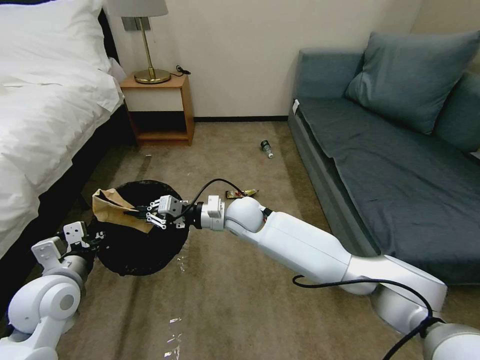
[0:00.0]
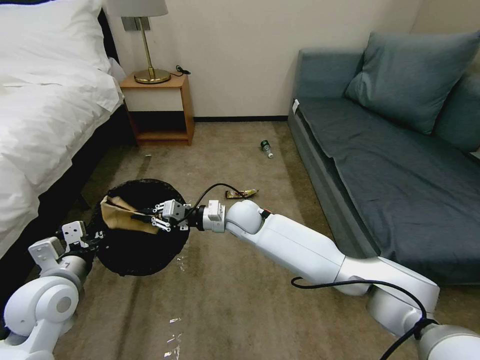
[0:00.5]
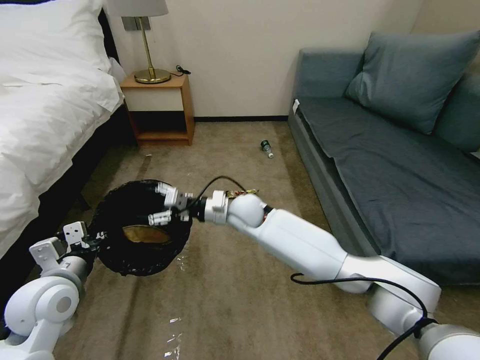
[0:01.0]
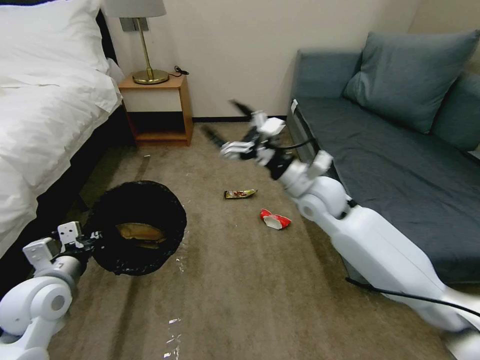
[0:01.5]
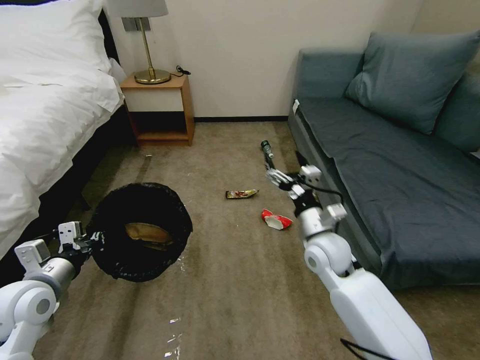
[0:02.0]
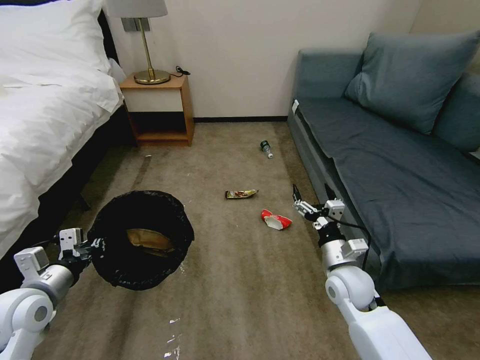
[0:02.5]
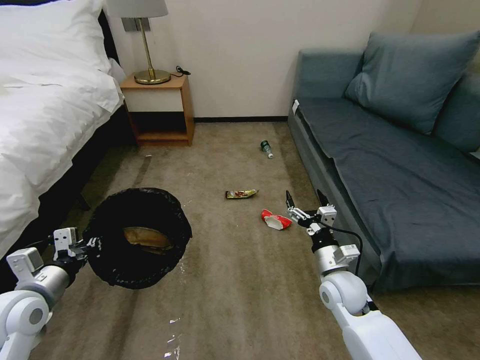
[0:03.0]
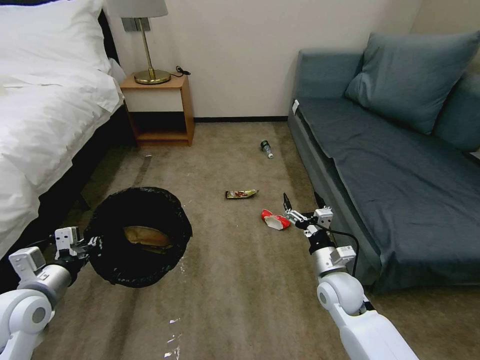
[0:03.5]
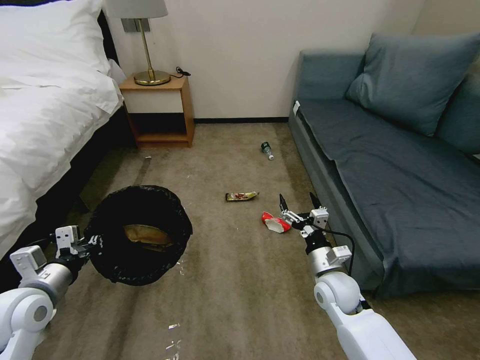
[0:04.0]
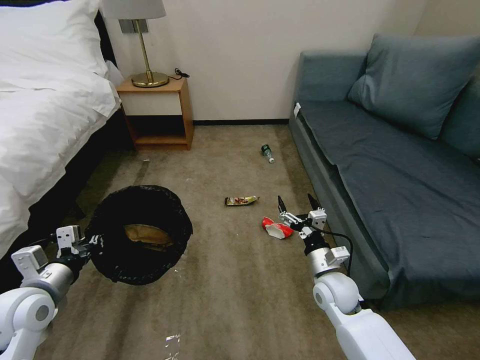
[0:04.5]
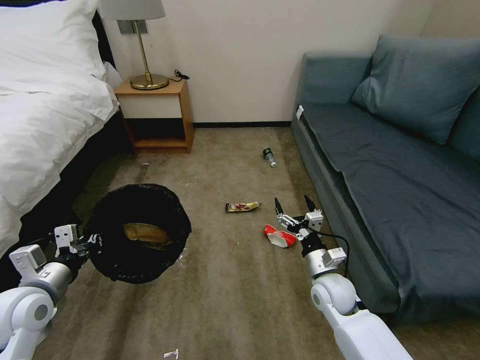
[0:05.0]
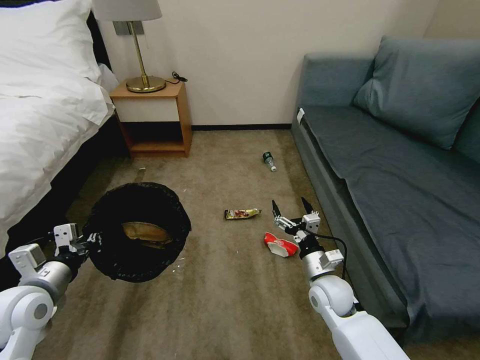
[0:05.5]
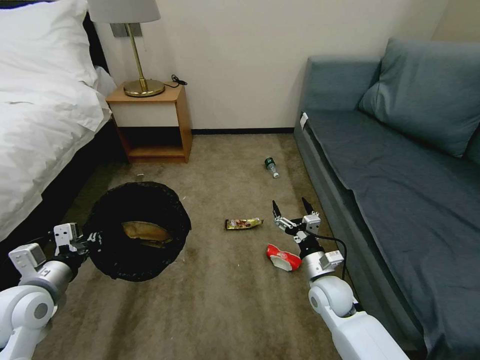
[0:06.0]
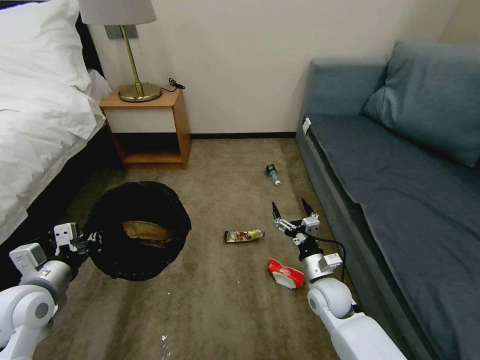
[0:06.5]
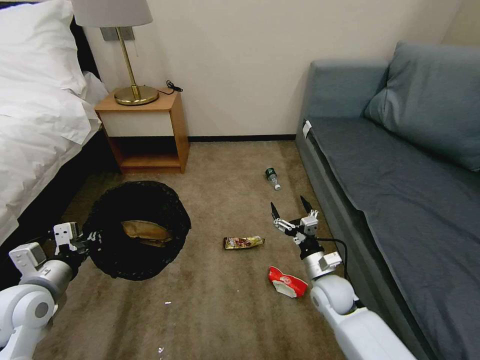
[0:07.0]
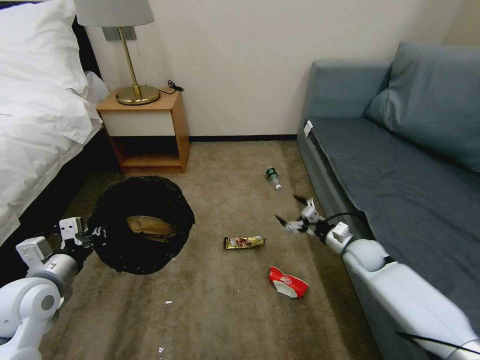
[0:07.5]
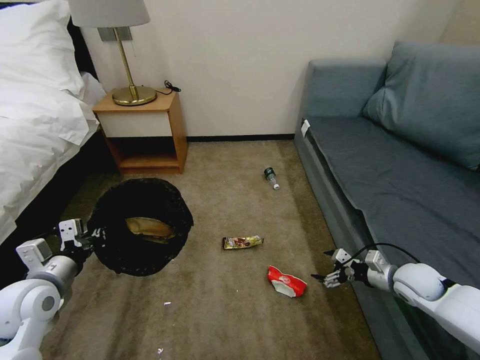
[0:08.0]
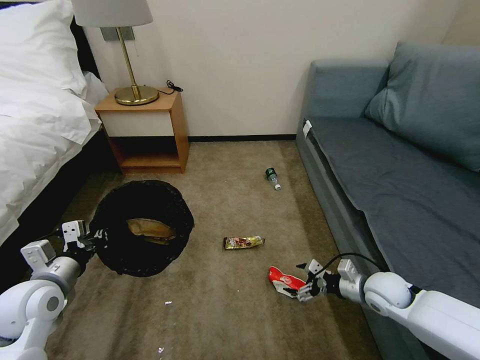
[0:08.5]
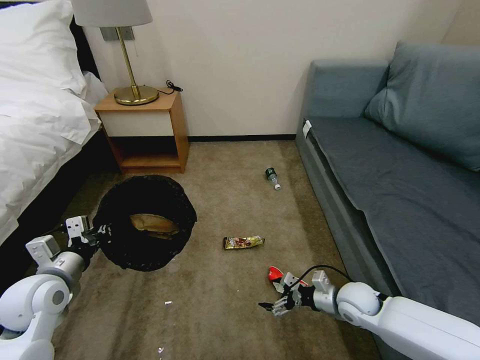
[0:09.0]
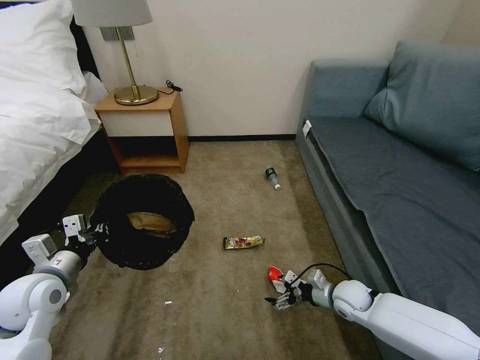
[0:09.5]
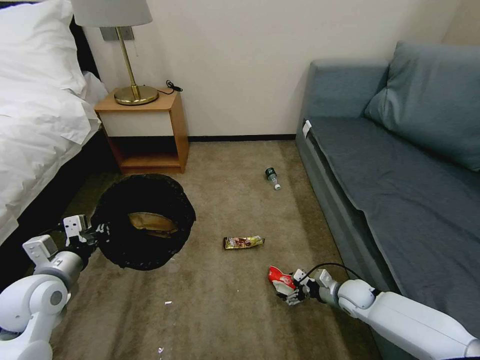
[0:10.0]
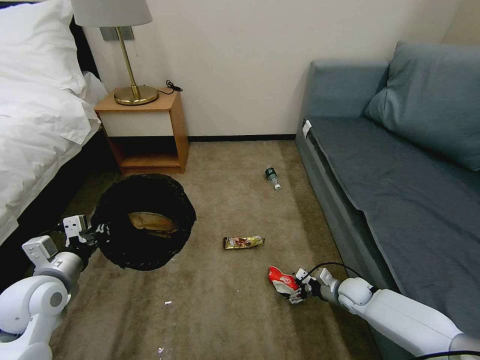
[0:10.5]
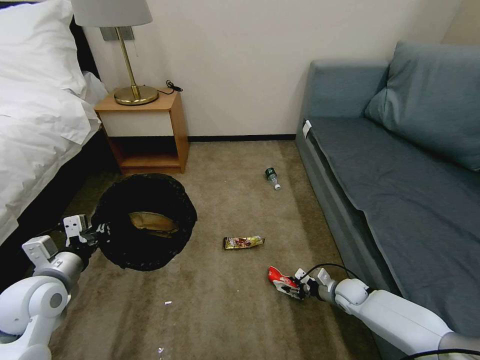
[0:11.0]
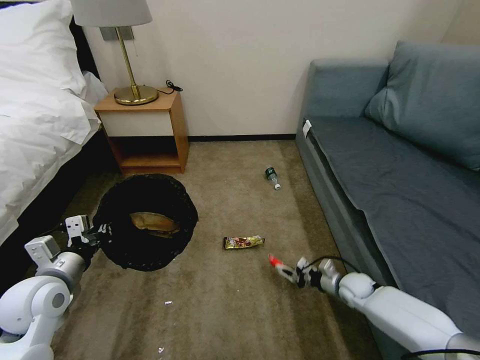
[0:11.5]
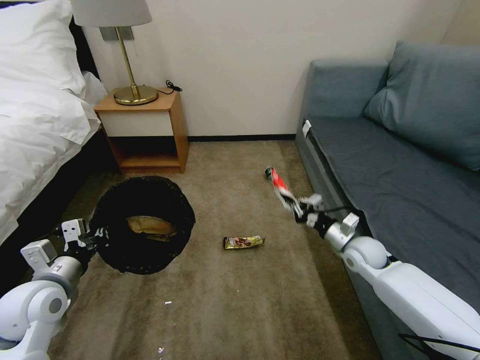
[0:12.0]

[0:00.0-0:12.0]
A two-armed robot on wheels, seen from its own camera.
Task of the whole recording: Pick up the trash bin, then pick up the garbage on the floor and place it into the trash bin.
0:00.0 to 0:02.0: The right gripper shifts about 20 cm to the right and backward, and opens.
0:02.0 to 0:04.0: The right gripper moves downward and backward, some 10 cm.
0:06.0 to 0:08.0: The right gripper shifts approximately 20 cm to the right.
0:08.0 to 0:10.0: The right gripper travels downward and to the left by about 15 cm.
0:10.0 to 0:12.0: The right gripper is displaced upward and forward by some 15 cm, and closes.

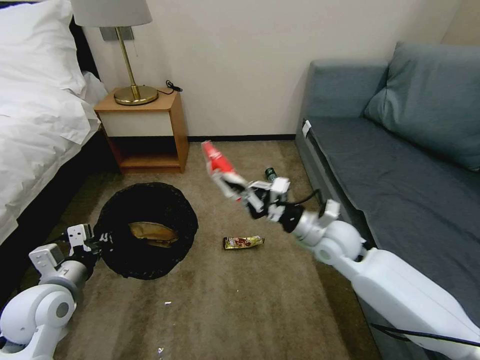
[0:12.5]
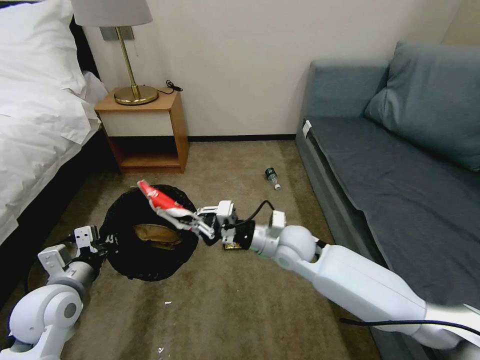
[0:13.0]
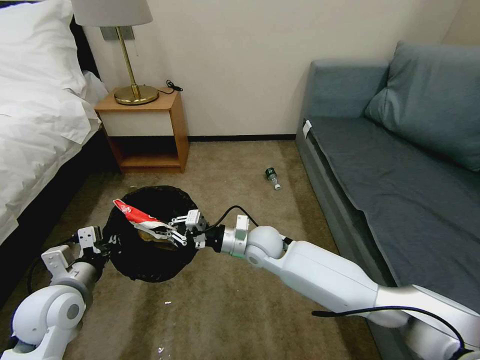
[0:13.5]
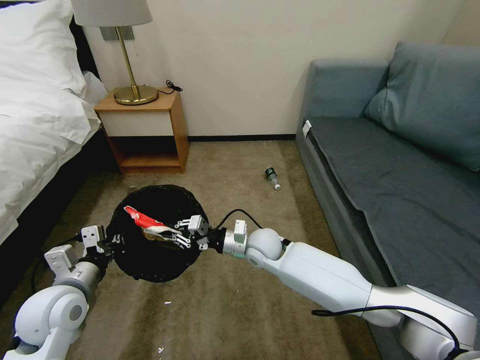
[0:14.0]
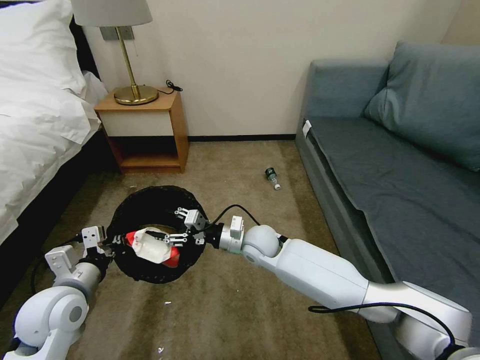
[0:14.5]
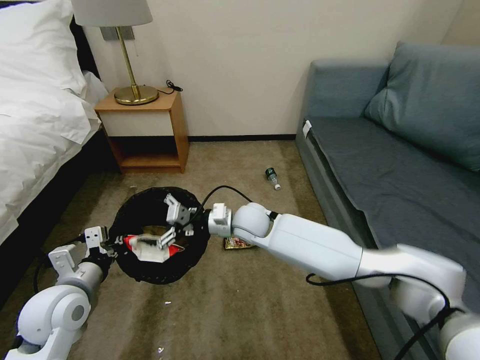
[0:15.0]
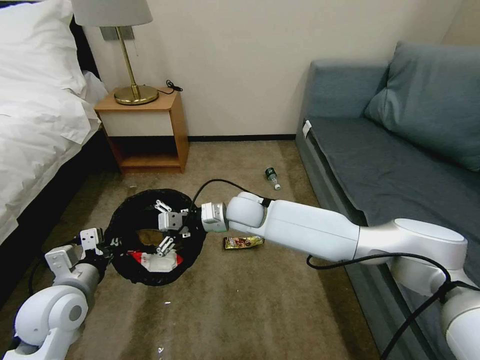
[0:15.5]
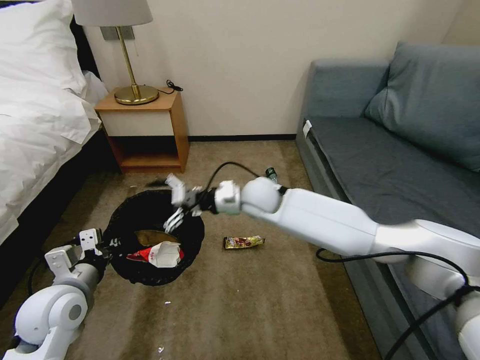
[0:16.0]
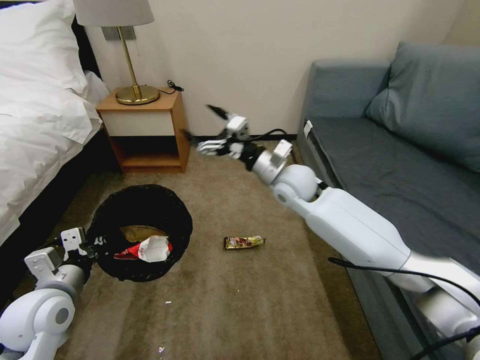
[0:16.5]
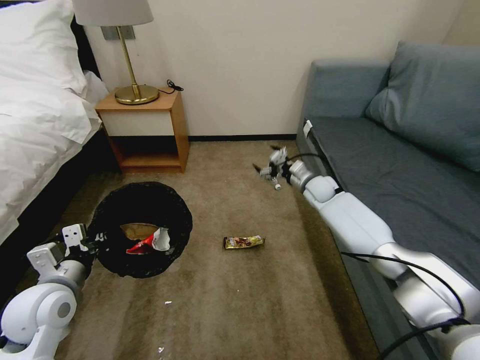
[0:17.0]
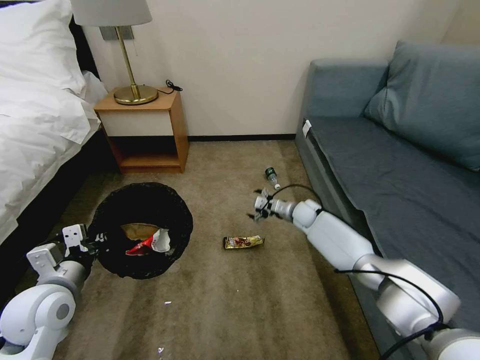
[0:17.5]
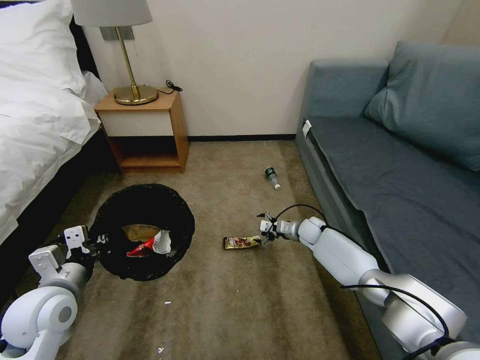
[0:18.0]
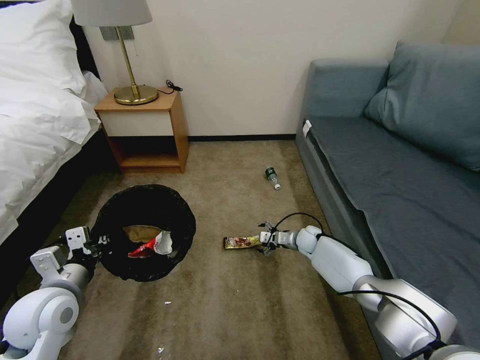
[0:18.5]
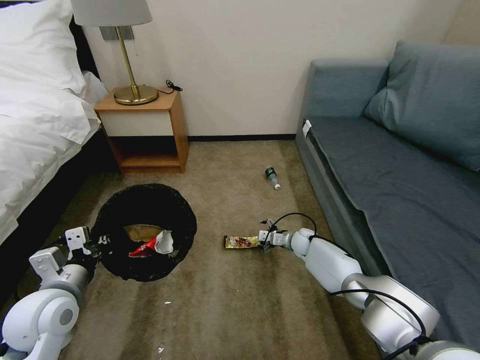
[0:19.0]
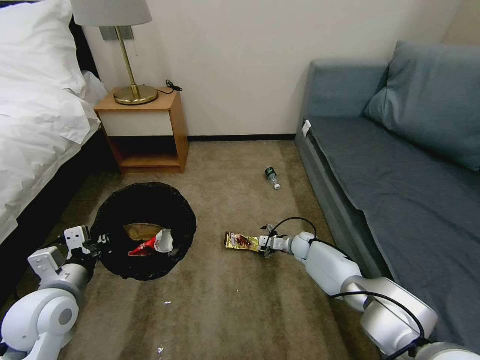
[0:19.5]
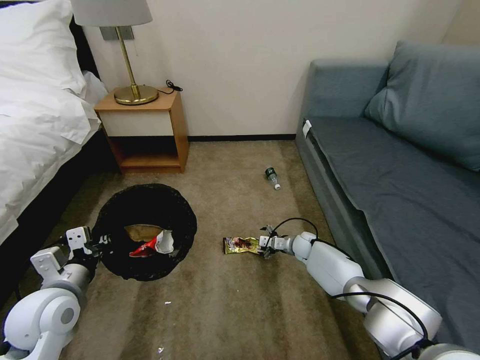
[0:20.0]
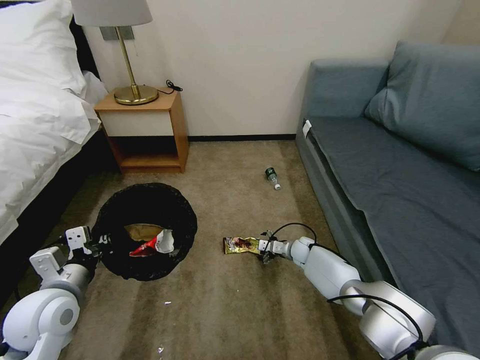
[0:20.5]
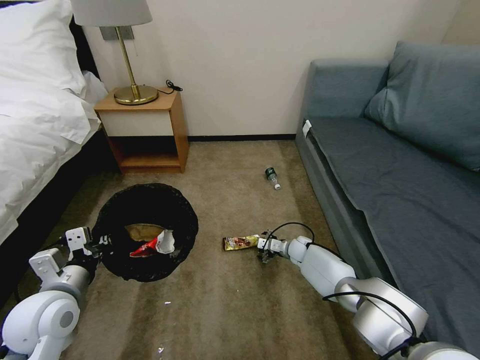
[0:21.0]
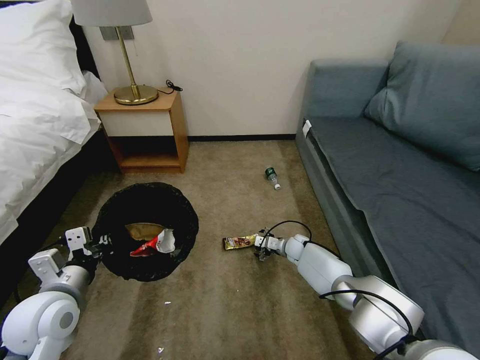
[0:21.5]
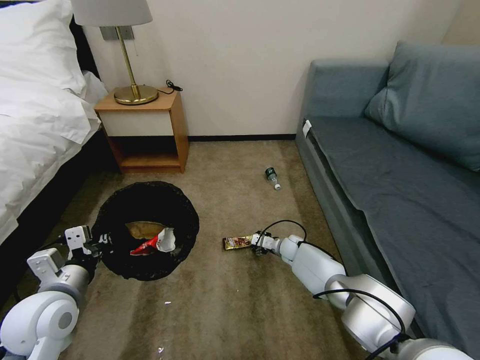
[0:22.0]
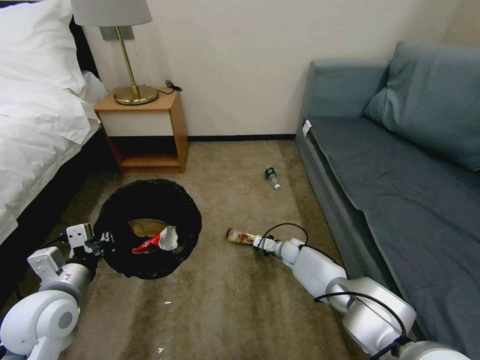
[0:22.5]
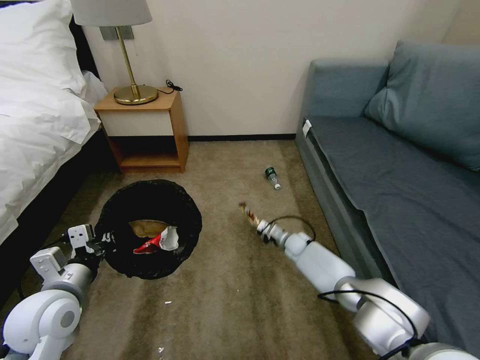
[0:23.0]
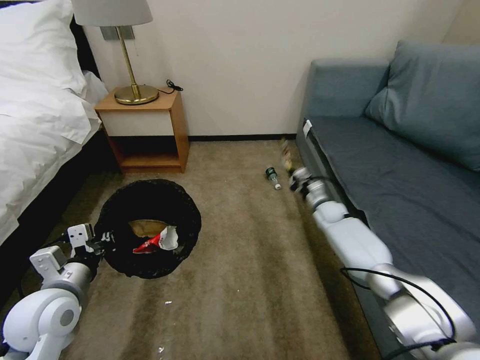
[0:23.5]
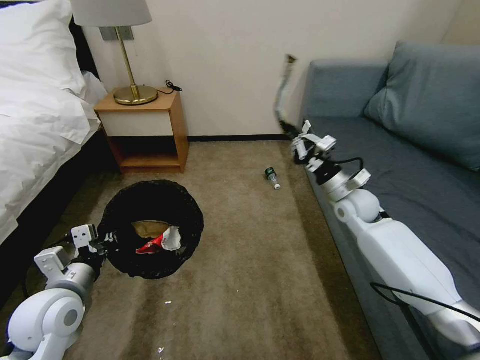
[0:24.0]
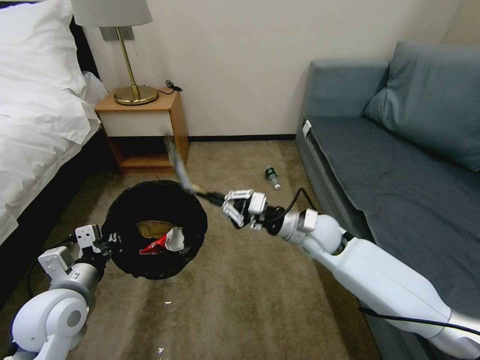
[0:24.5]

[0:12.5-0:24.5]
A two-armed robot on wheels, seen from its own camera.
Task of the whole recording: Pick up the trash bin, then pick up the garbage on the floor and place it into the trash bin.
0:12.5 to 0:14.5: The right gripper shifts some 20 cm to the left and downward, and opens up.
0:14.5 to 0:16.5: The right gripper shifts about 20 cm upward, to the right and forward, and opens.
0:16.5 to 0:18.5: The right gripper travels downward by some 30 cm.
0:18.5 to 0:20.5: The grippers stay close to where they were, moving slightly.
0:20.5 to 0:22.5: The right gripper closes up.
0:22.5 to 0:24.5: The right gripper moves upward, some 25 cm.

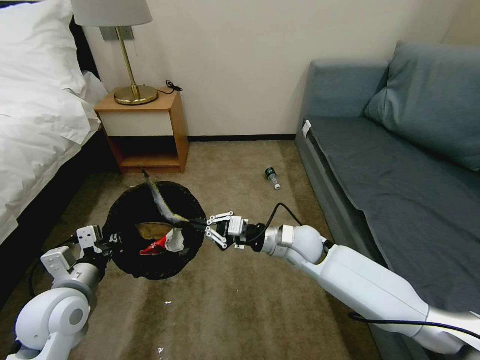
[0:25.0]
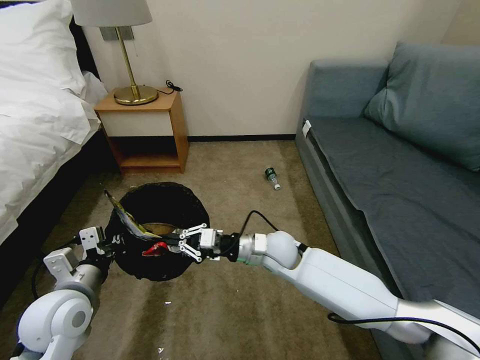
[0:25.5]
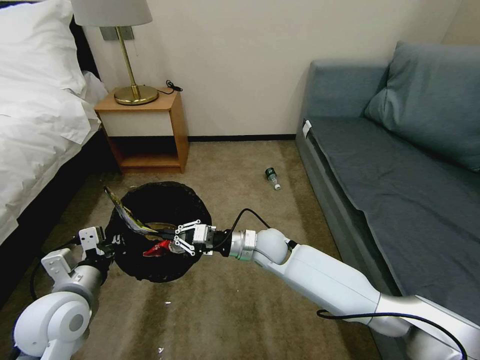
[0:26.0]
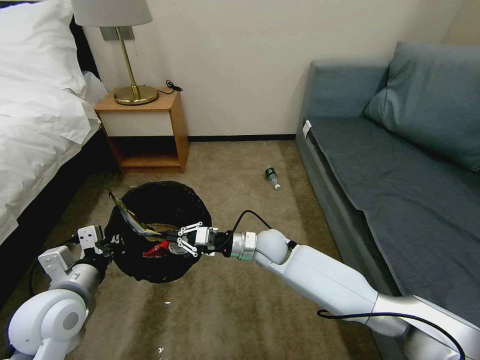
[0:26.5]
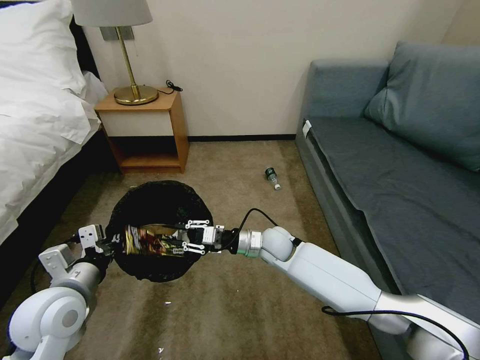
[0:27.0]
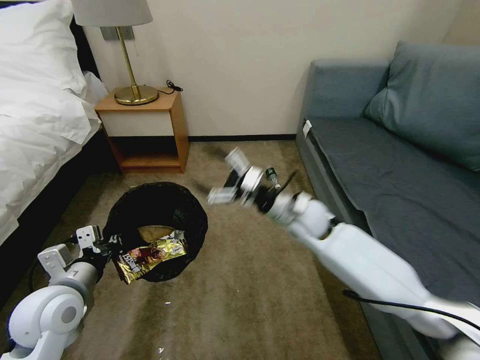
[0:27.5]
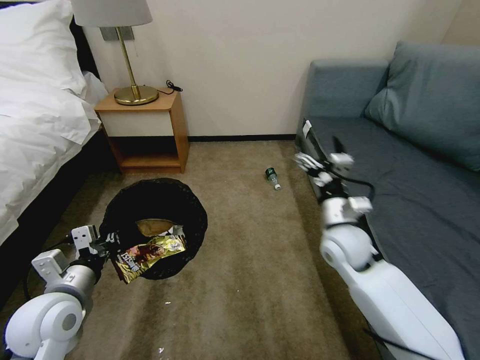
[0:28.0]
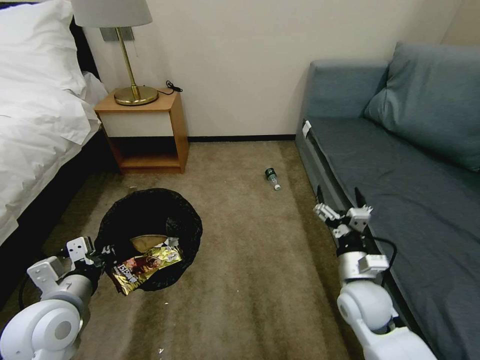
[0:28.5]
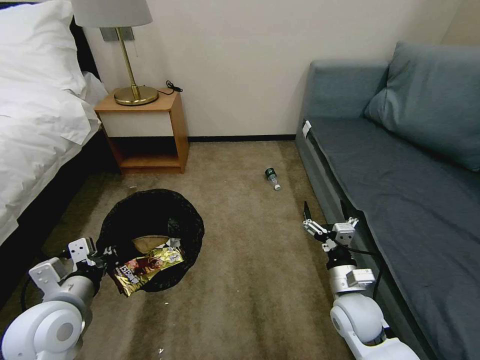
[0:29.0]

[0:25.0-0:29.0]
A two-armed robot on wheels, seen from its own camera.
Task of the whole recording: Pick up the trash bin, then pick up the garbage on the floor and place it into the trash bin.
0:25.0 to 0:27.0: The right gripper goes approximately 5 cm to the left.
0:27.0 to 0:29.0: The right gripper goes approximately 25 cm backward and to the right, and opens.
